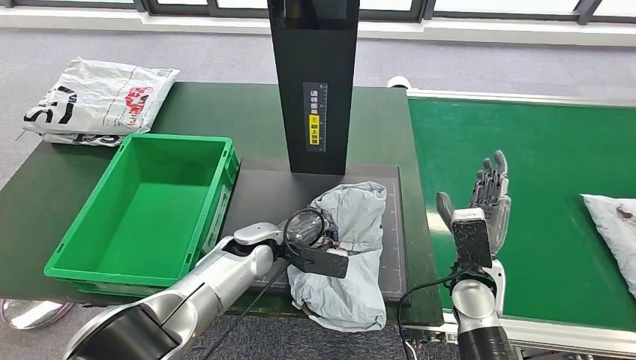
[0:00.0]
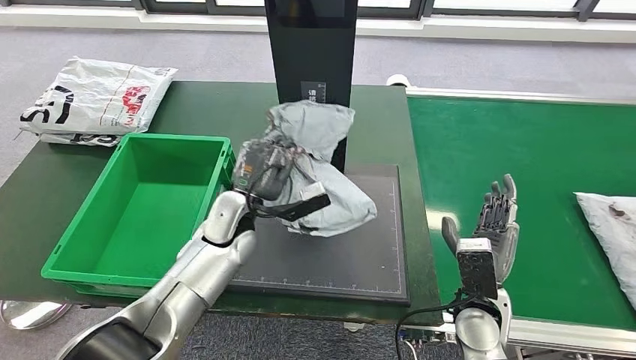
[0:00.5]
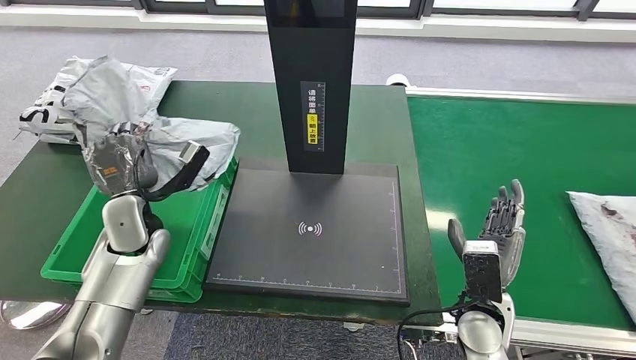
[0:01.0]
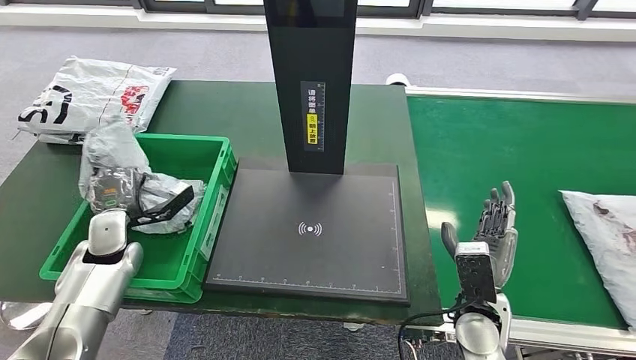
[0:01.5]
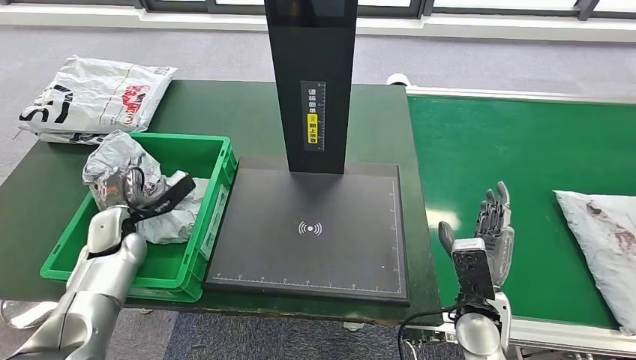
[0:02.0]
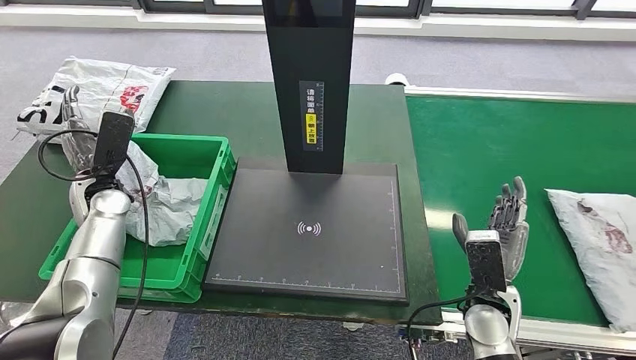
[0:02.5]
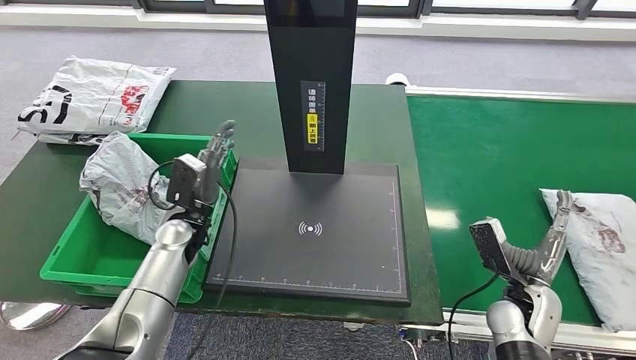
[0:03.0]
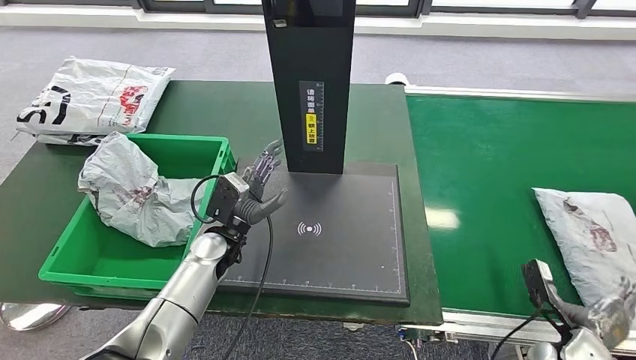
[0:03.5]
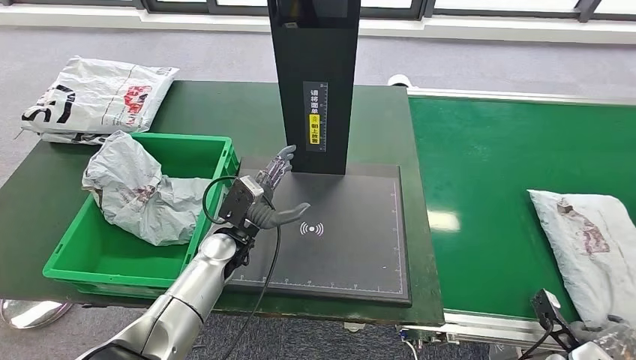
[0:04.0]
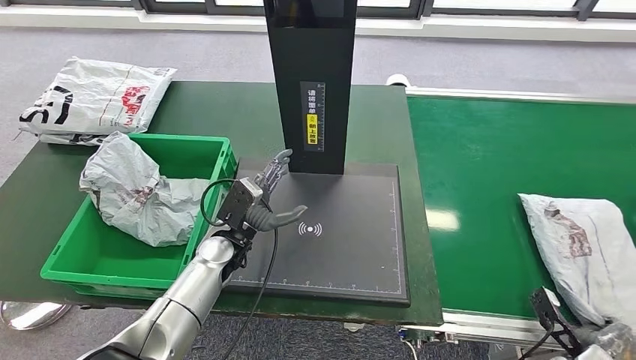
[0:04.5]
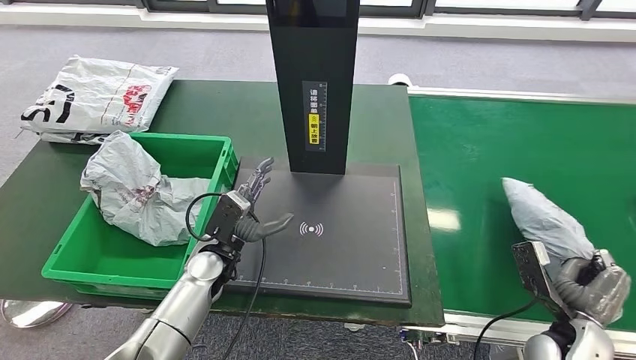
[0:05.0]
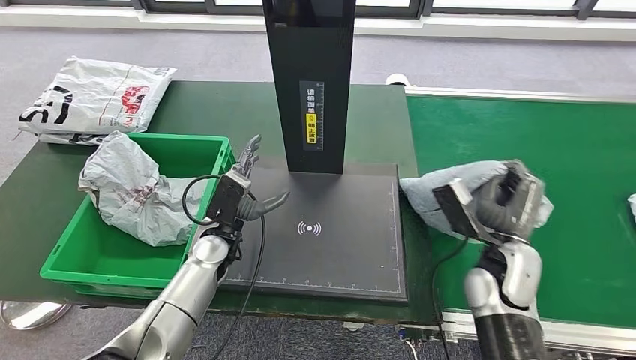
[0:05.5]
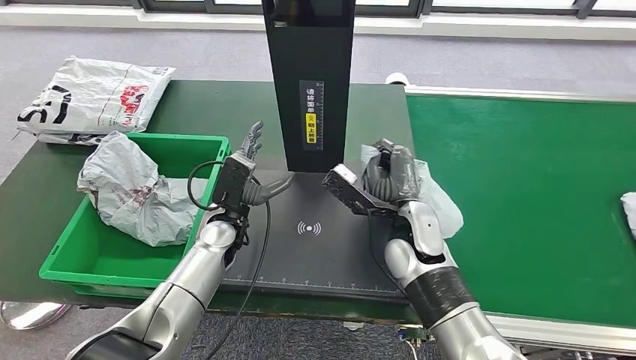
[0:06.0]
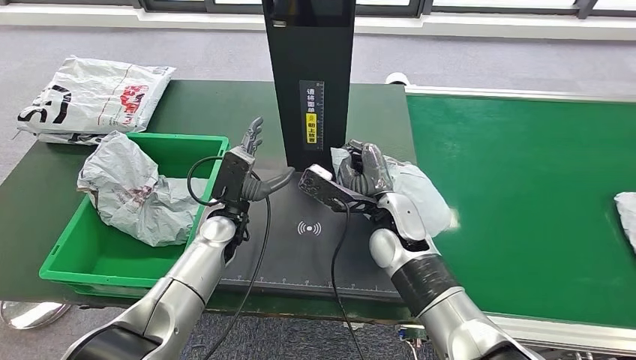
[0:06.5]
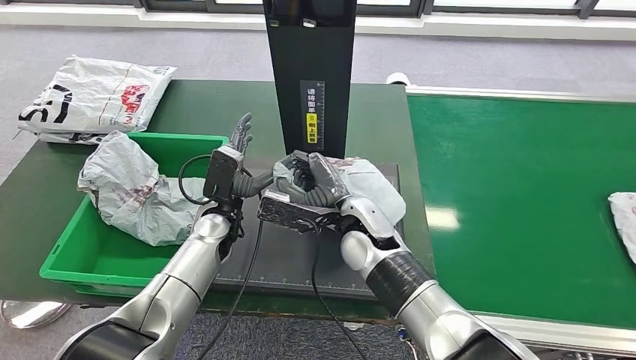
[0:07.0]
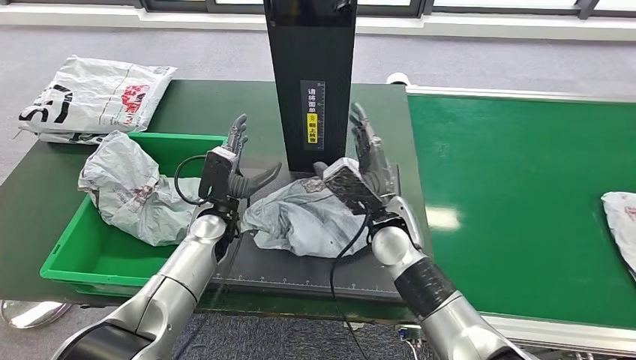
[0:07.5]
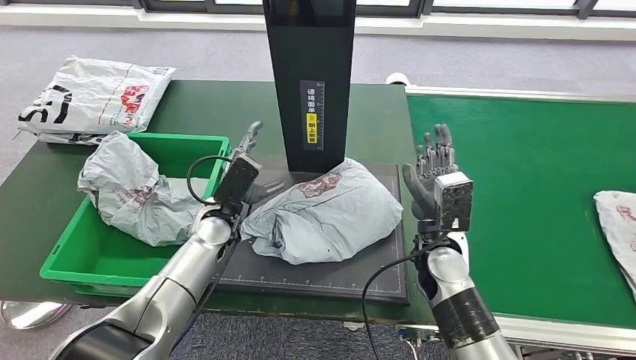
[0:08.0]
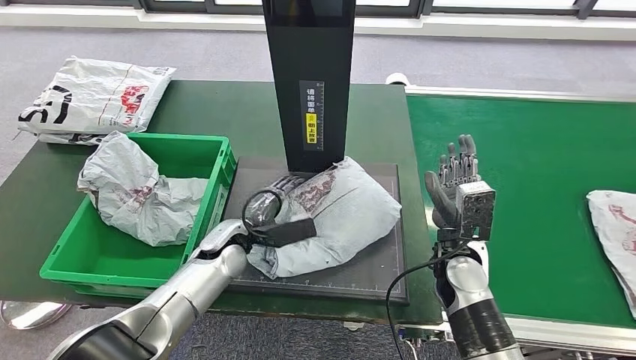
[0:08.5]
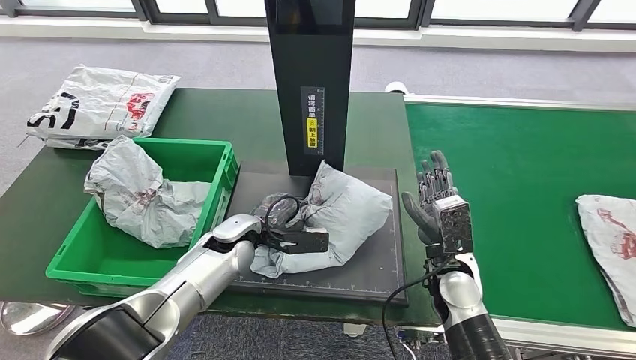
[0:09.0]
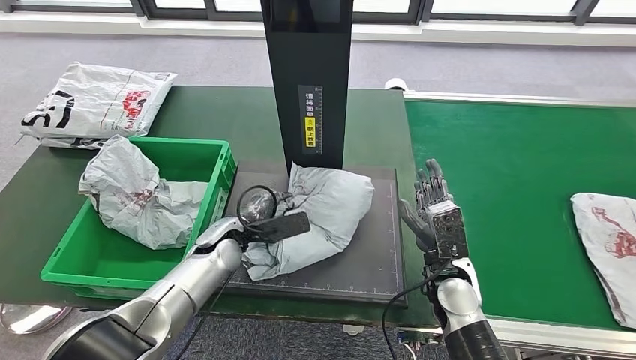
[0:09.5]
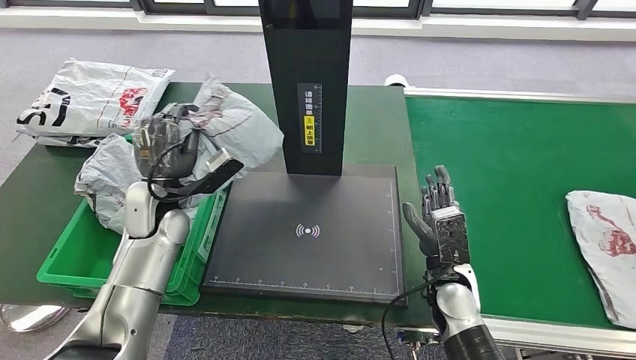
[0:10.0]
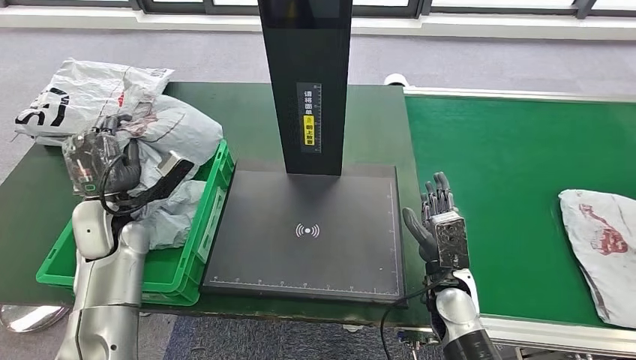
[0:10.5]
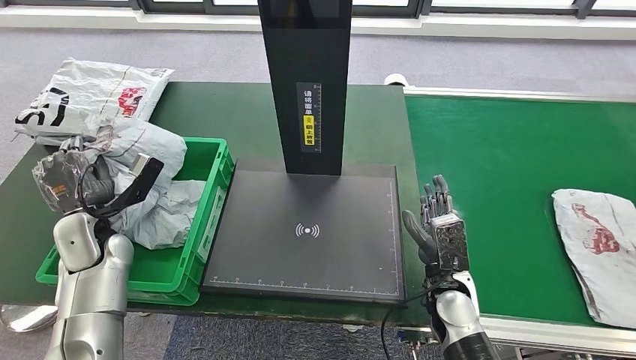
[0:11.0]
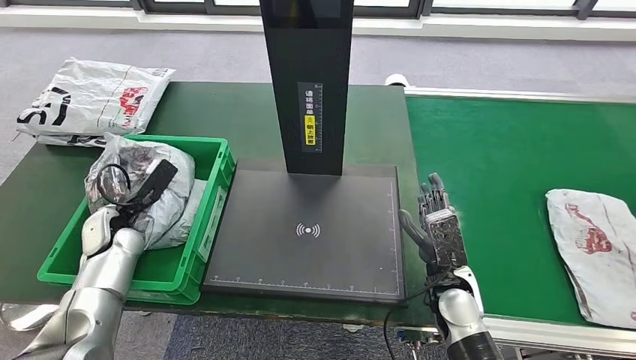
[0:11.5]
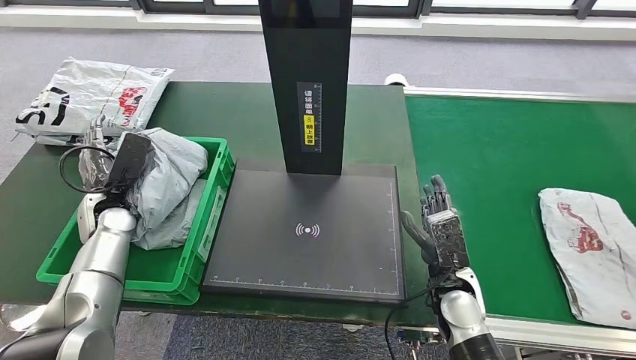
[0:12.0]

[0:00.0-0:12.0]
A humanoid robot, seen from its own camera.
Step, 0:01.5 to 0:02.0: Put the parcel inside the courier box.
Step, 0:02.5 to 0:05.5: Pick up the parcel from the conveyor belt.
Step, 0:06.0 to 0:08.0: Place the parcel onto the inbound machine.
Step, 0:09.0 to 0:10.0: Pick up the parcel from the inbound machine.
0:06.0 to 0:08.0: The right hand moves some 5 cm.

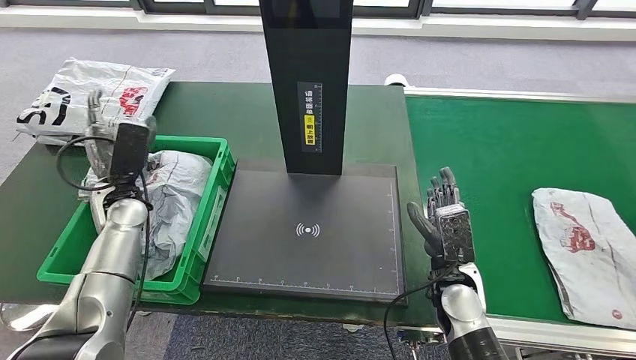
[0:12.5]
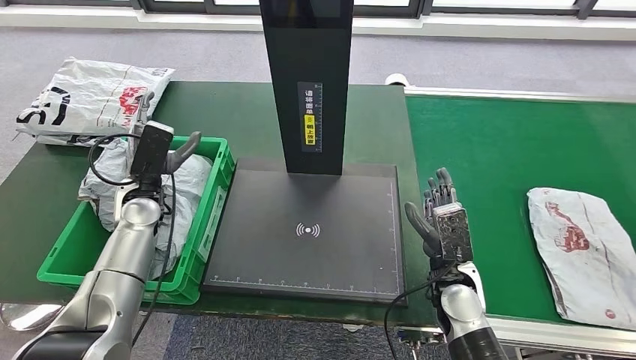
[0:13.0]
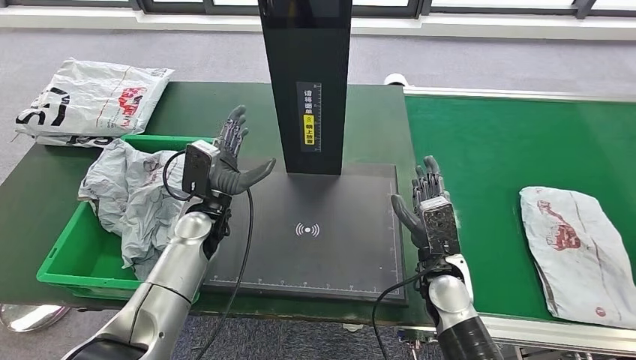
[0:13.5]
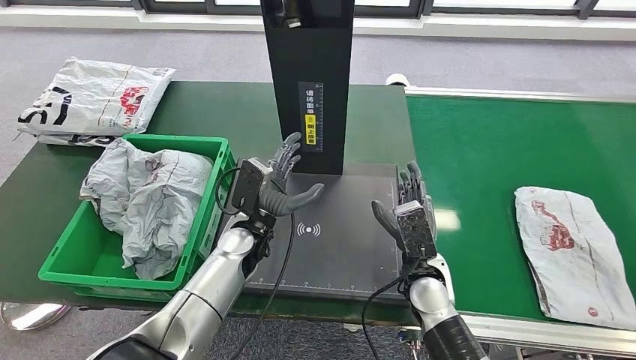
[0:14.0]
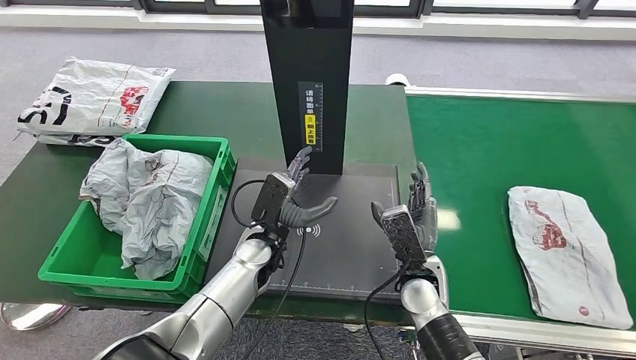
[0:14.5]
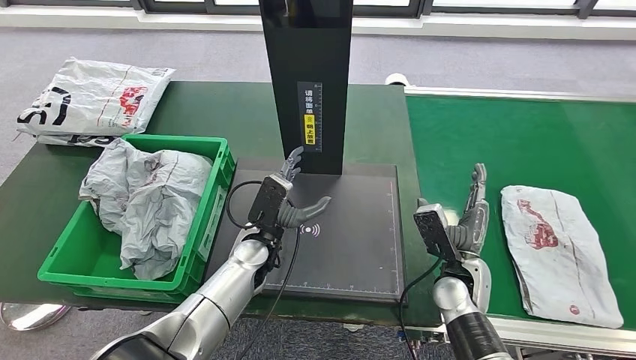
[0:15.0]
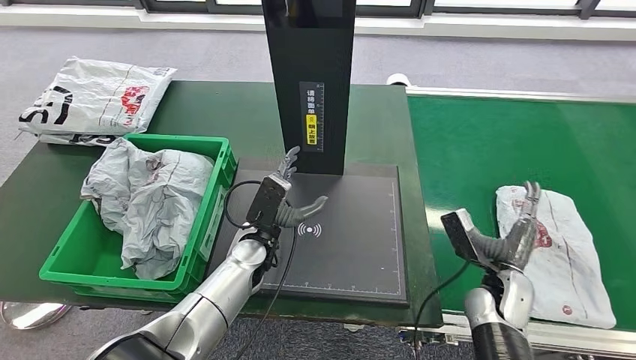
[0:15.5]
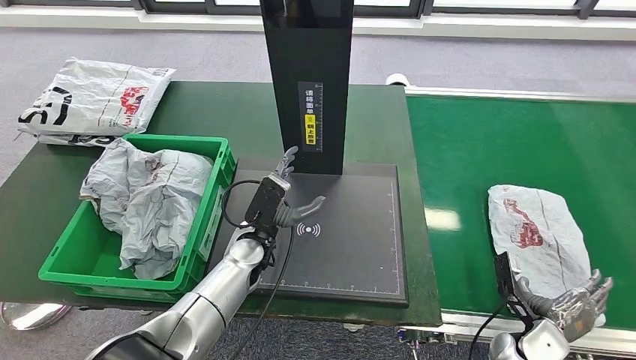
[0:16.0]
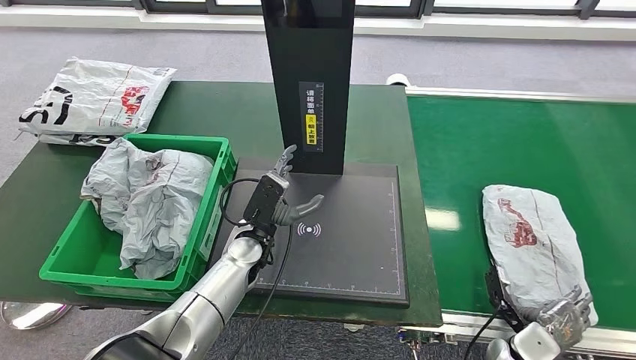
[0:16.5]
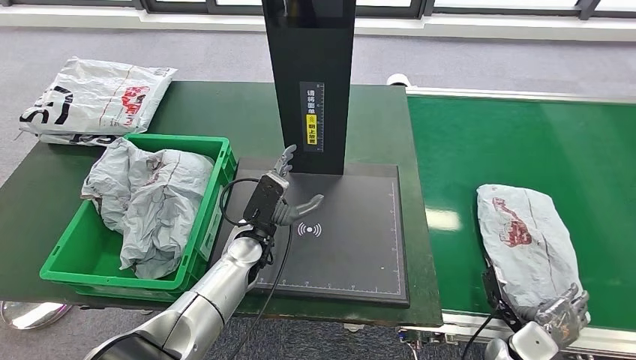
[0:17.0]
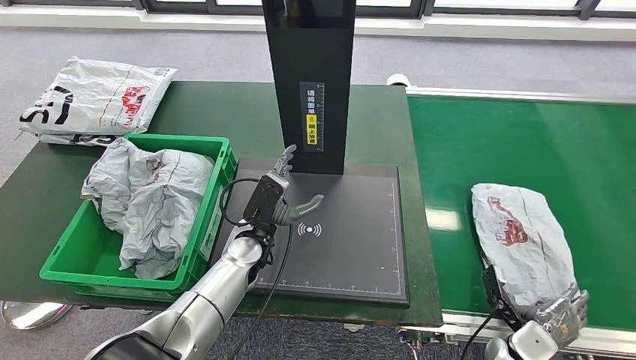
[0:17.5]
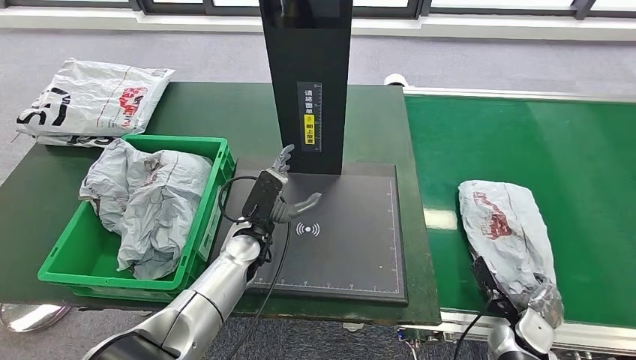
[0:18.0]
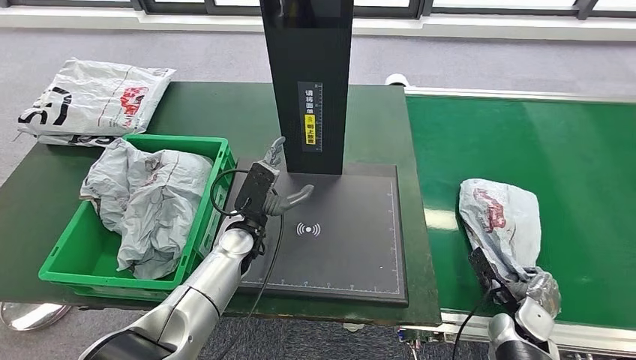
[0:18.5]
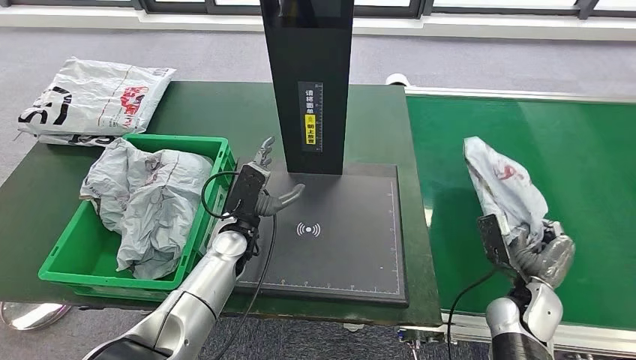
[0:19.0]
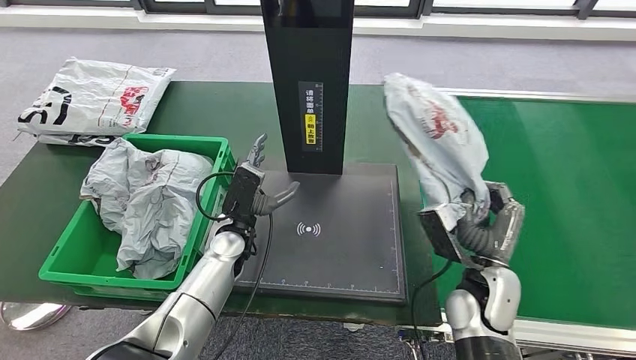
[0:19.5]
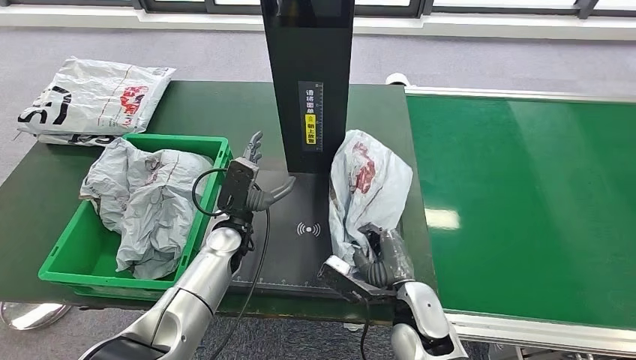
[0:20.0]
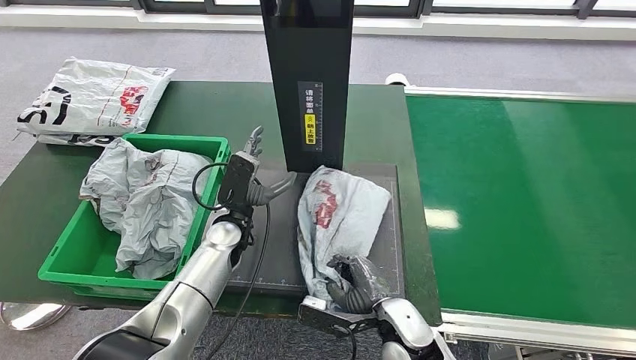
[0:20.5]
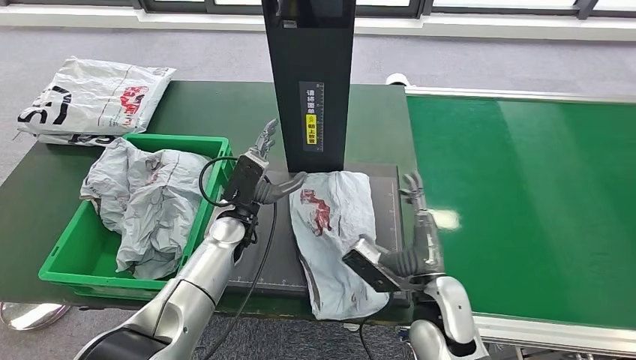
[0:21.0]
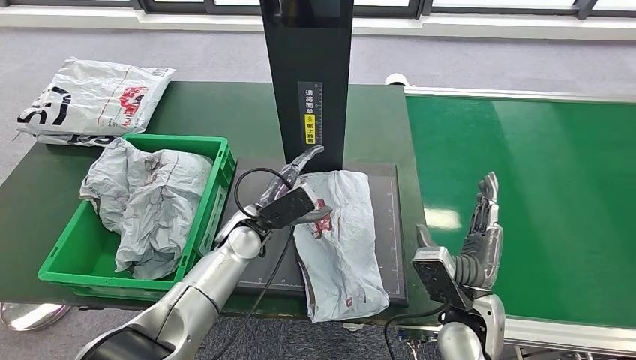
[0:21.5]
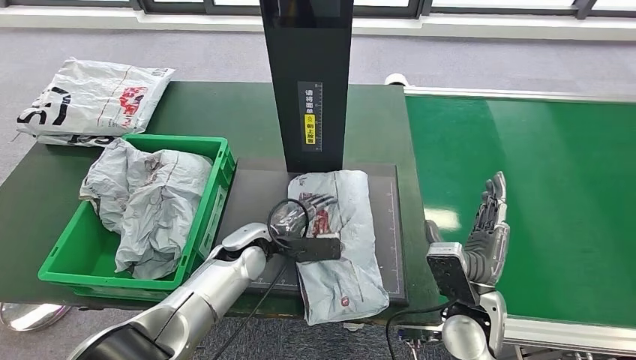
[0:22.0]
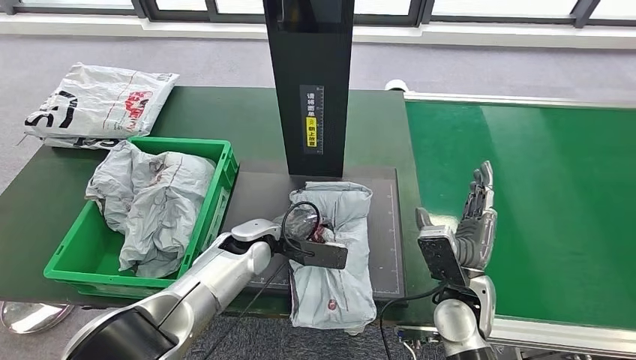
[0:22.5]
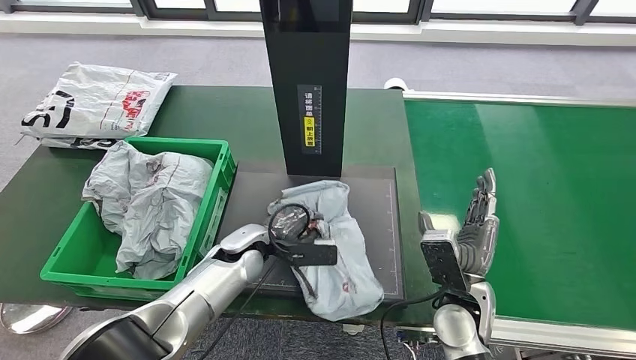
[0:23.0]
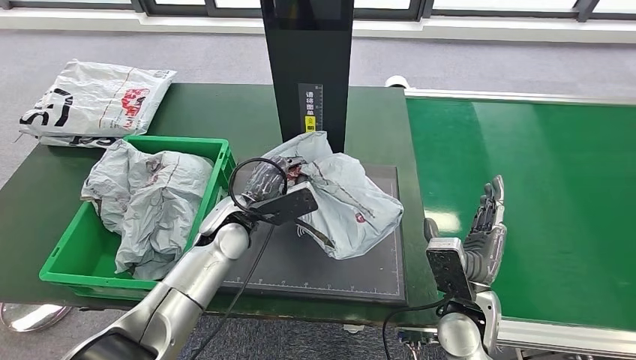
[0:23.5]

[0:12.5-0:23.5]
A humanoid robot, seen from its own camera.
Step, 0:13.0 to 0:19.5: Pick up the parcel from the conveyor belt.
Step, 0:20.0 to 0:21.5: Place the parcel onto the inbound machine.
0:14.5 to 0:16.0: The right hand heads to the right and downward, covering about 20 cm.
0:20.0 to 0:21.5: The right hand travels to the right by some 10 cm.
